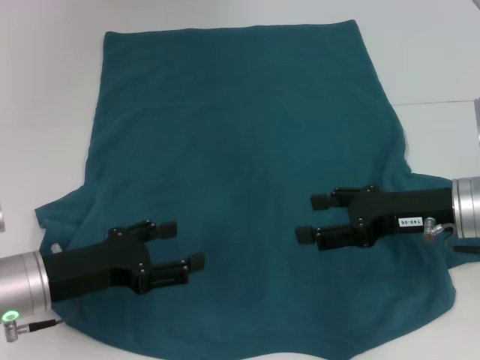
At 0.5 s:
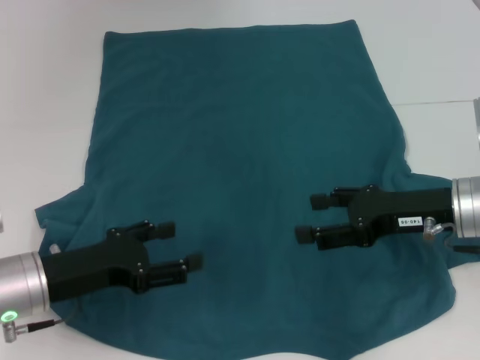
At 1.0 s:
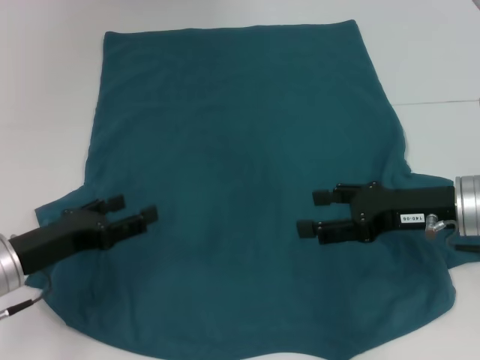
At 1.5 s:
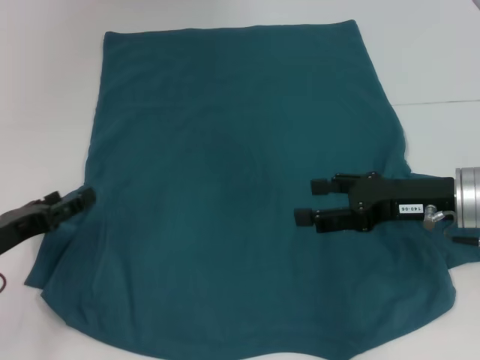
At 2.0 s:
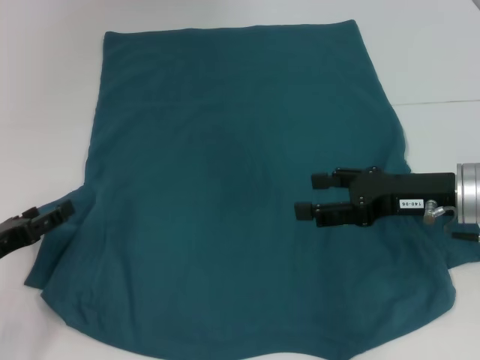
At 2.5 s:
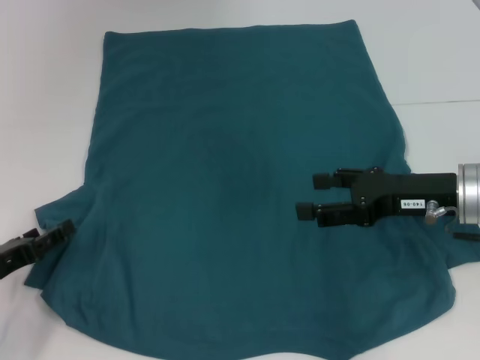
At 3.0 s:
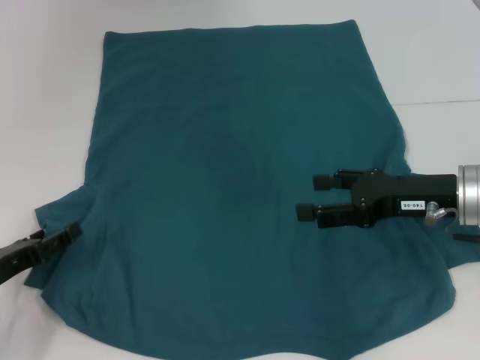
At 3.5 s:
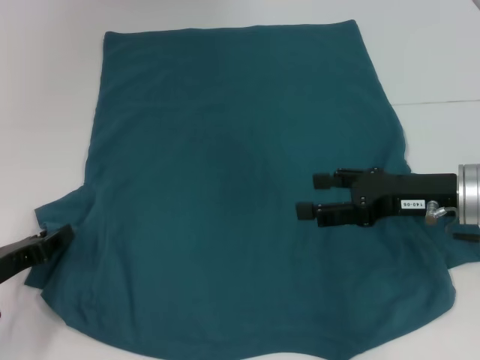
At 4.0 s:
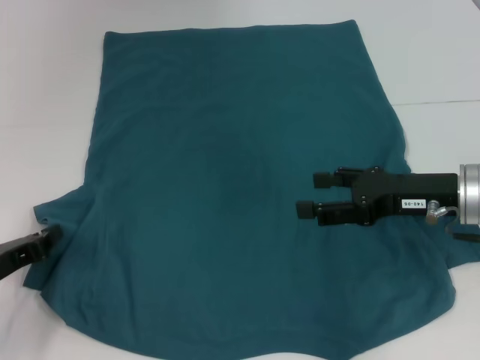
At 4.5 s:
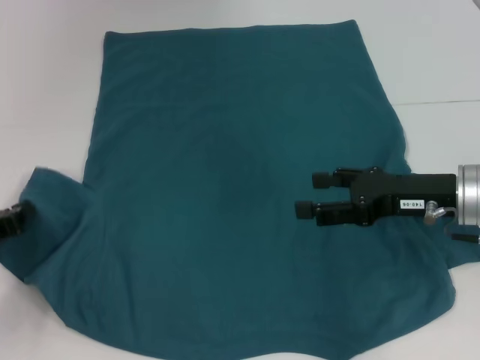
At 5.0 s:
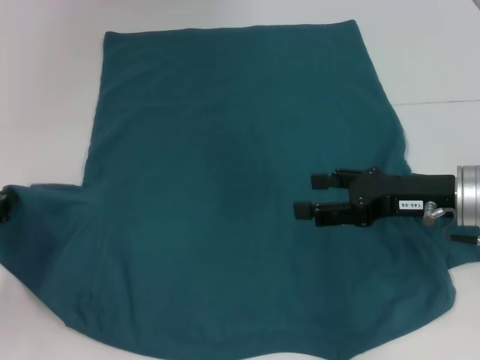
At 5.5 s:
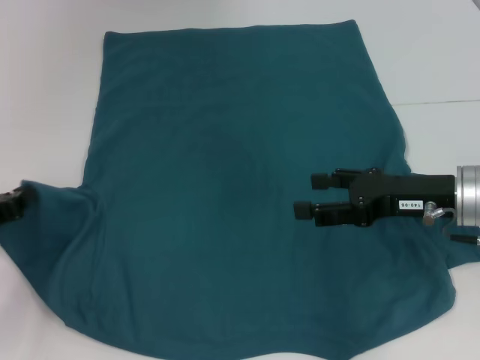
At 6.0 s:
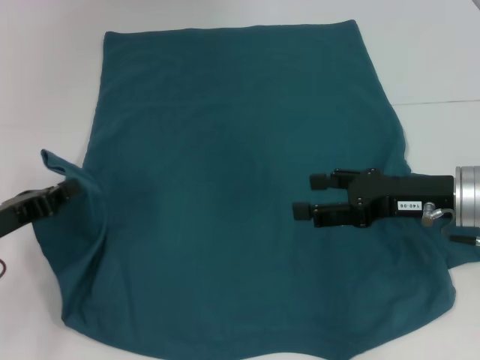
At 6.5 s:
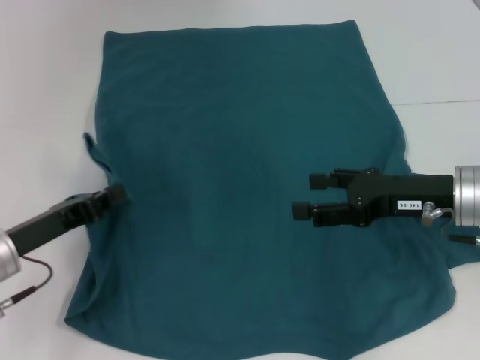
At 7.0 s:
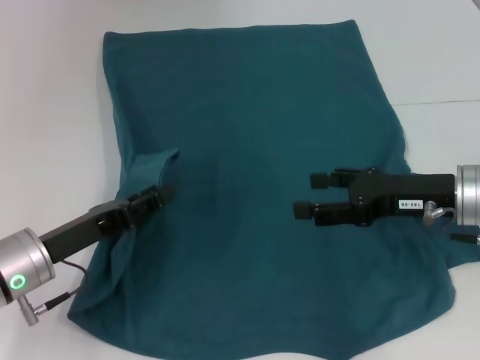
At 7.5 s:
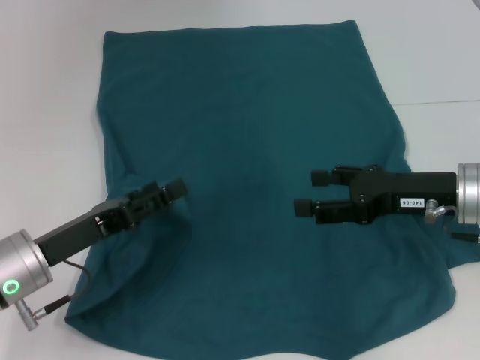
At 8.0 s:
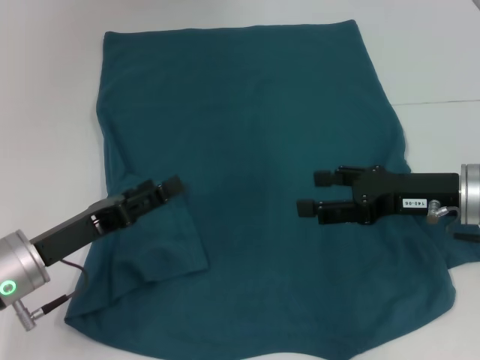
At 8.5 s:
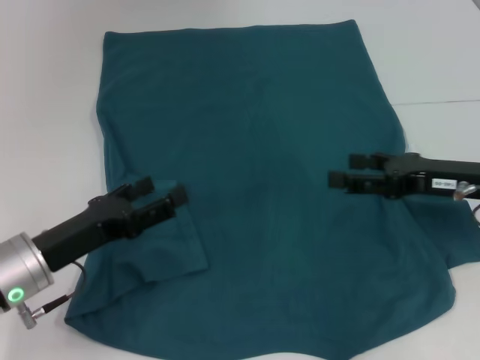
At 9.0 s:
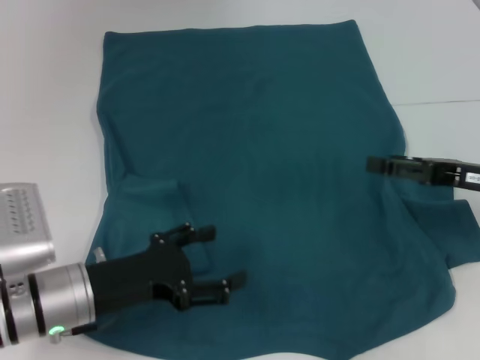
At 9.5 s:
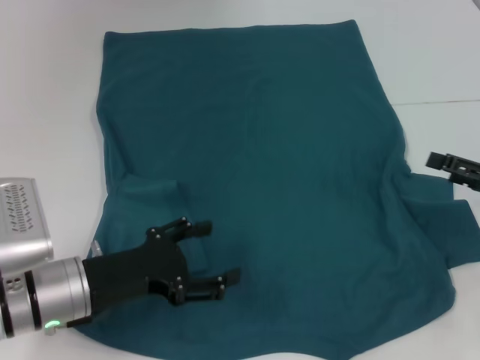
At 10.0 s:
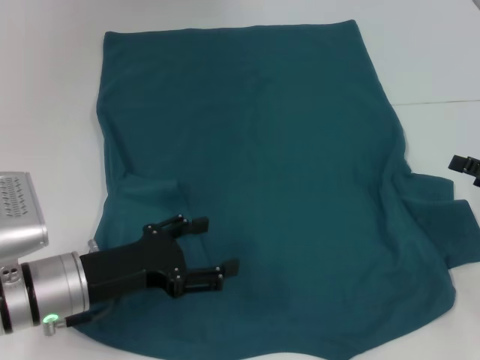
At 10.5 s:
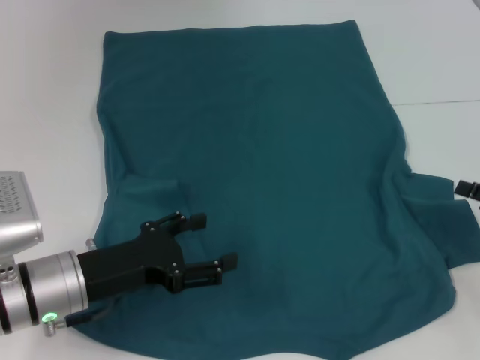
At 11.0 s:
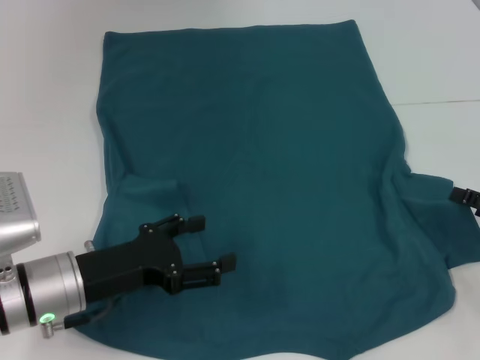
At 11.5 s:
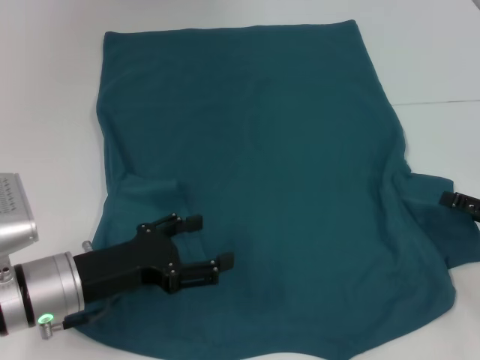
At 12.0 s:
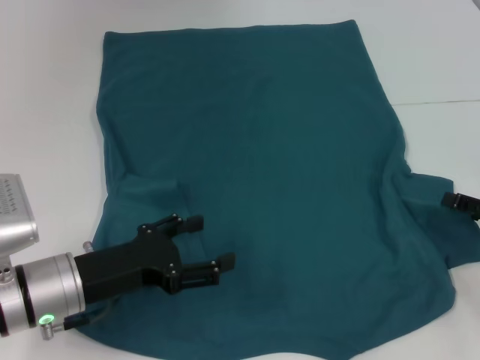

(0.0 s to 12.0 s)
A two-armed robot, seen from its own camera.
Step, 0.0 s - 8.0 s: Fold the bottom left sleeve with your left hand.
0.0 s - 2.0 s: The left gripper goes about 10 cm to the left.
2.0 s - 4.0 s: The left gripper closes its fingers.
4.0 s - 6.0 s: There are only small adjustments of the grippers.
6.0 s - 8.0 s: The left gripper moves to the right, about 5 cm, and opens.
8.0 s - 10.0 s: The right gripper shifts roughly 15 cm to the right.
10.0 s - 12.0 s: There are only small adjustments of the grippers.

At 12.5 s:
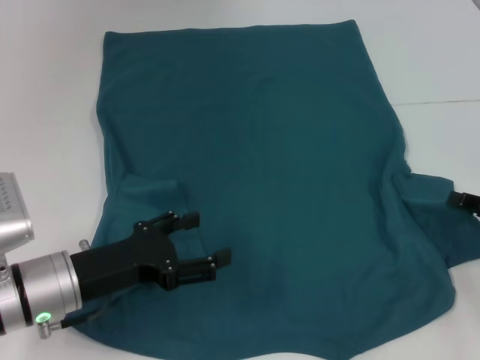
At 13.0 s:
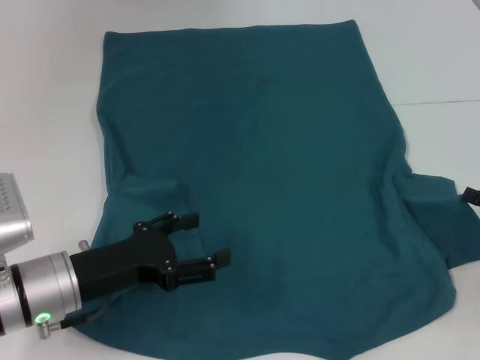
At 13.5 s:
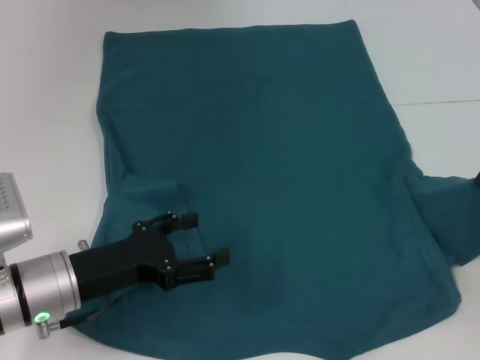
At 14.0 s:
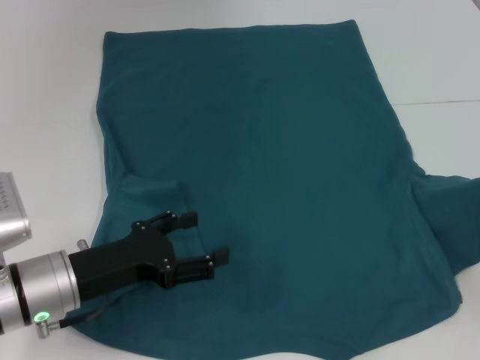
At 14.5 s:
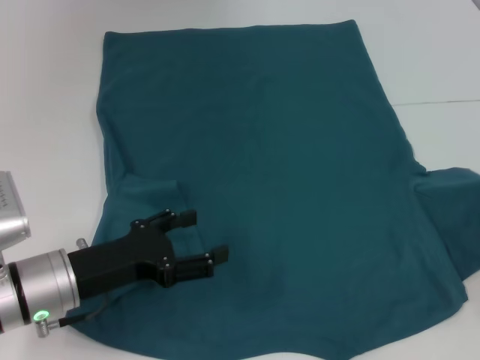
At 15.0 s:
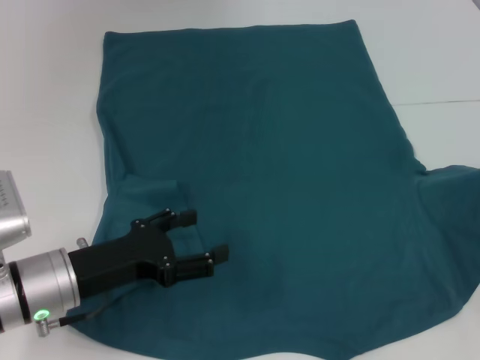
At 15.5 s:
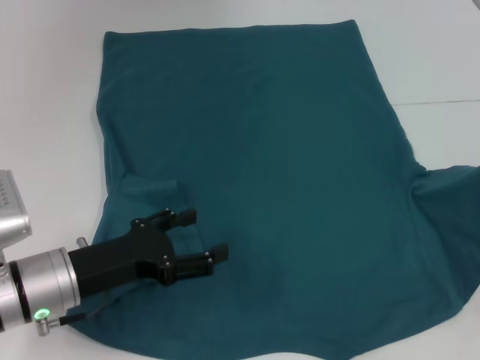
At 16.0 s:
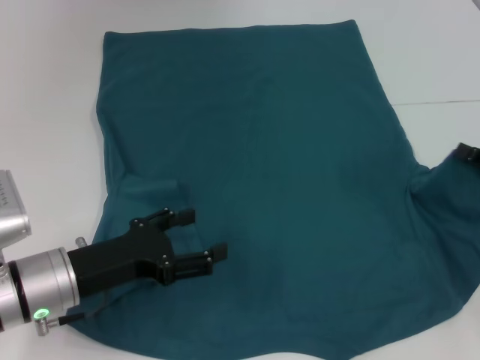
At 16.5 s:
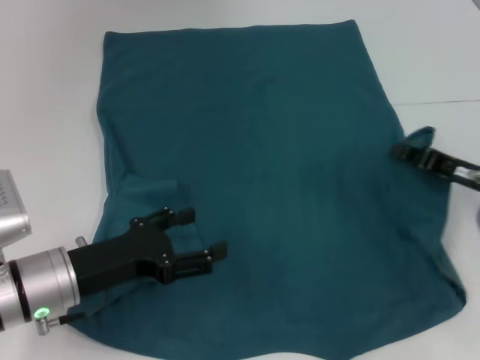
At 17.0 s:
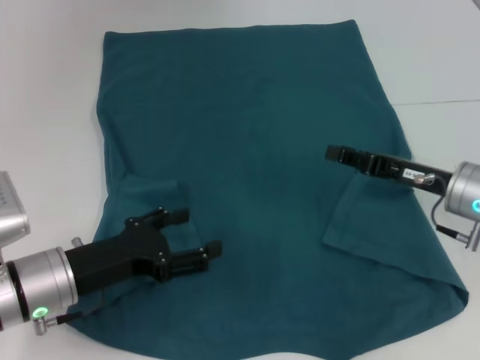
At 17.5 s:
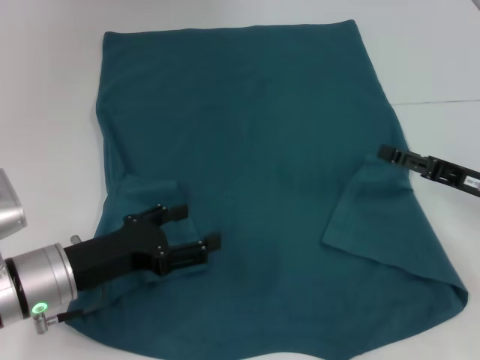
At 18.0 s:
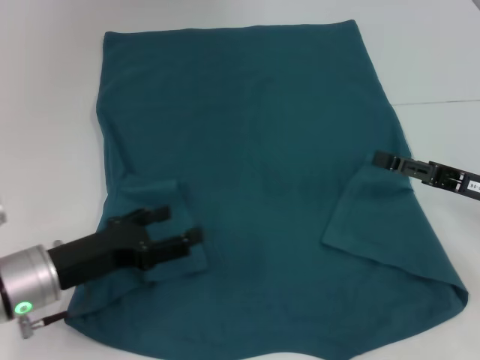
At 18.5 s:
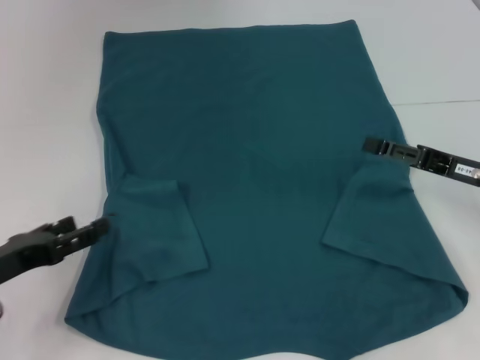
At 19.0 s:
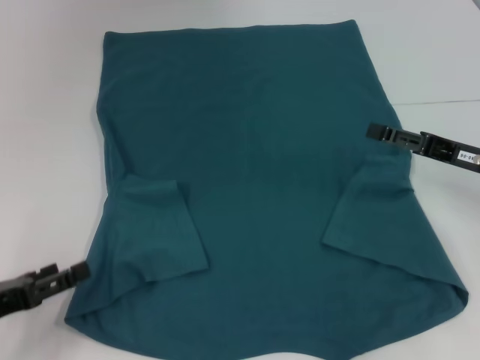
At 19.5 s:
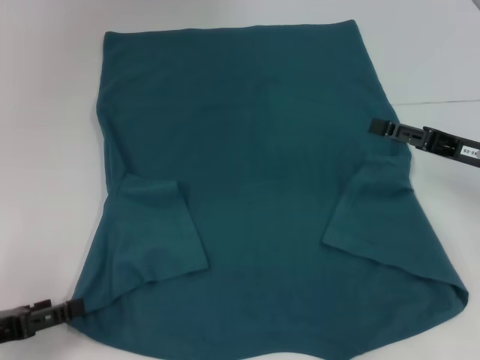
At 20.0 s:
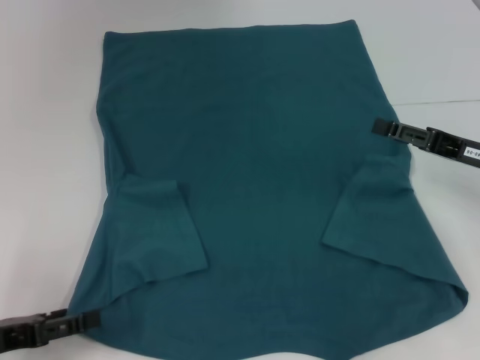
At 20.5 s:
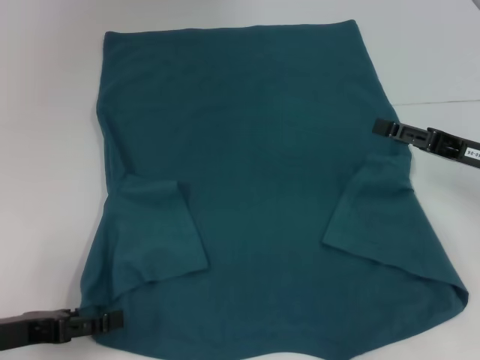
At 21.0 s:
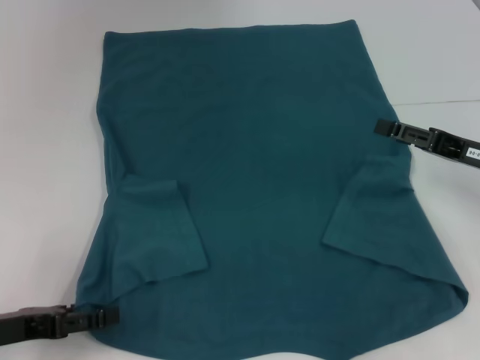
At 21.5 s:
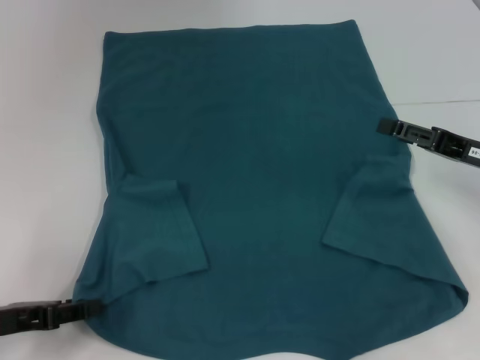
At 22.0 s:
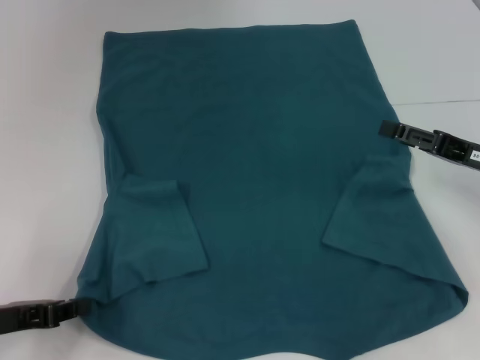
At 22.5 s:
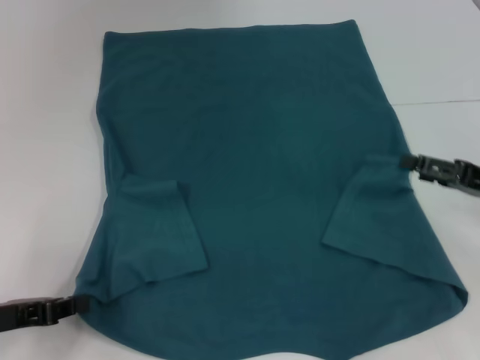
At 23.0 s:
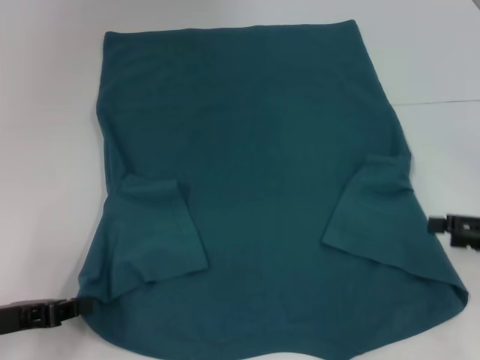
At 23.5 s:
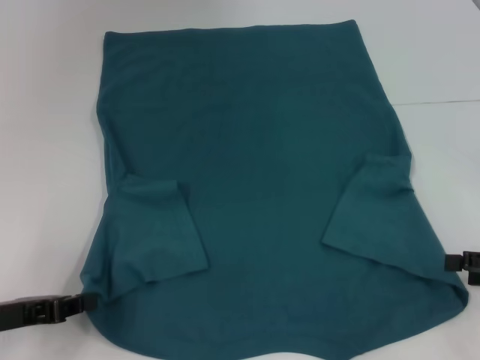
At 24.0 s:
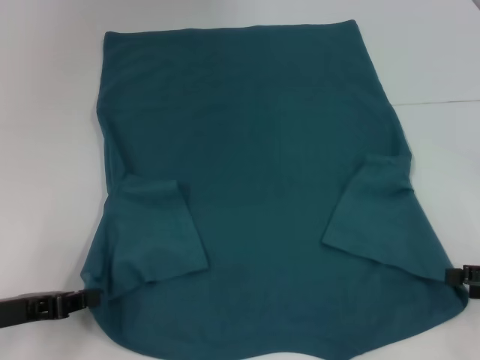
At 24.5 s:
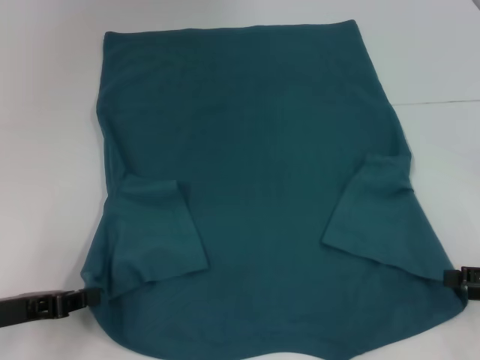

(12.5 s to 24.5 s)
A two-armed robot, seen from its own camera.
Step, 12.5 s - 17.0 s: Fold the bottom right sleeve to the right.
Step, 17.5 s - 22.5 s: Grab the bottom left corner with your left hand.
12.5 s - 14.5 s: The right gripper closes up.
14.5 s - 16.5 s: The right gripper travels to the left and forward by some 10 cm.
16.5 s - 18.5 s: The right gripper opens its fingers. The left gripper shifts about 10 cm to the left.
20.5 s - 22.5 s: The left gripper closes.
22.5 s - 24.5 s: The right gripper is displaced backward by some 5 cm.

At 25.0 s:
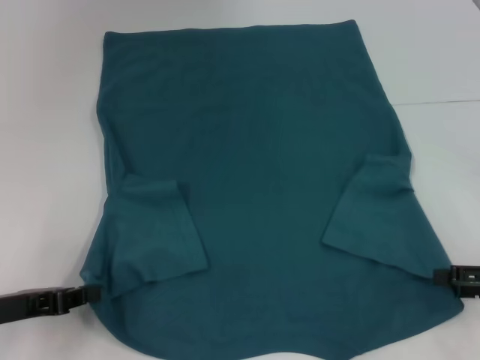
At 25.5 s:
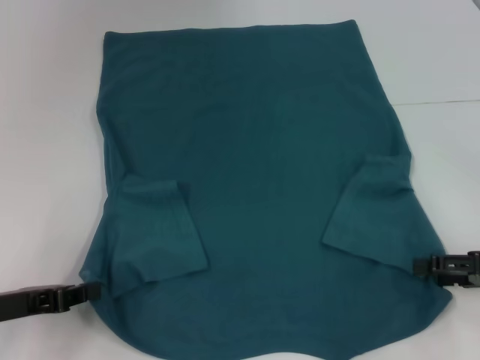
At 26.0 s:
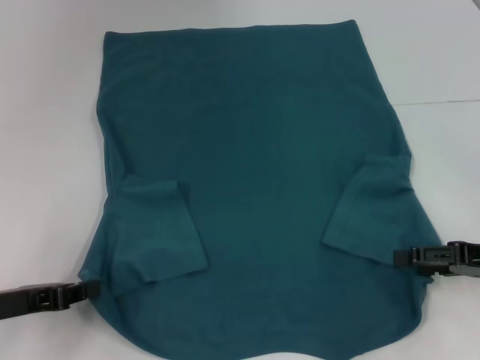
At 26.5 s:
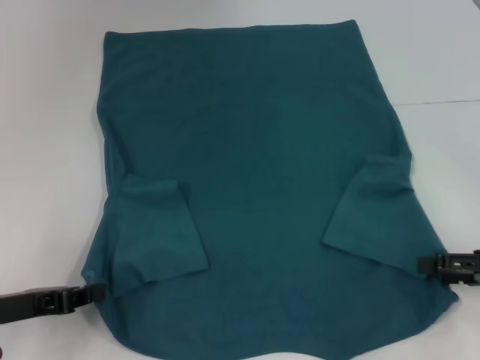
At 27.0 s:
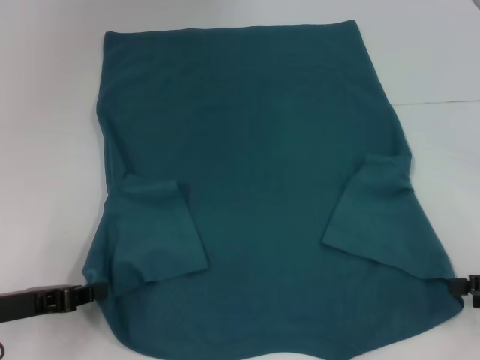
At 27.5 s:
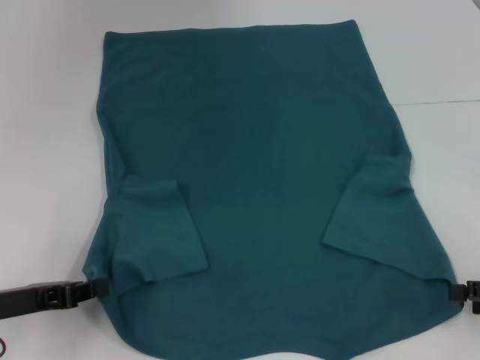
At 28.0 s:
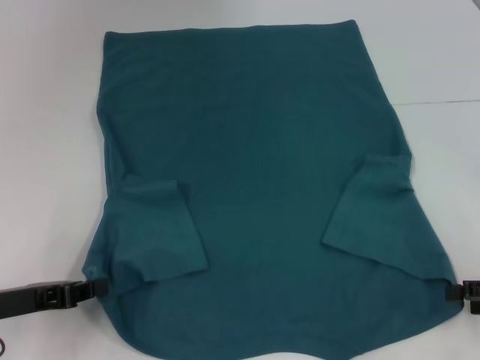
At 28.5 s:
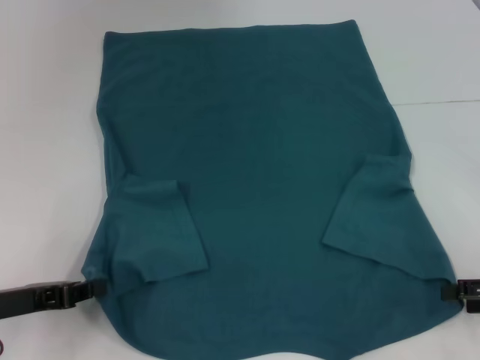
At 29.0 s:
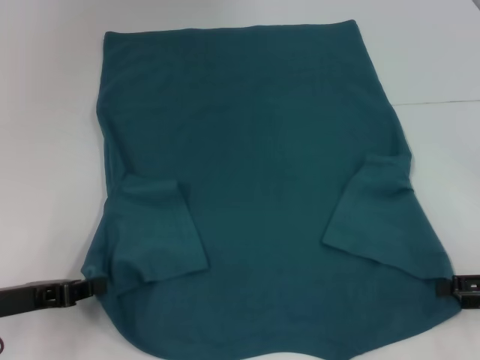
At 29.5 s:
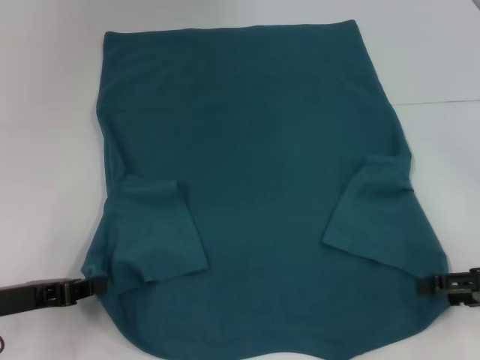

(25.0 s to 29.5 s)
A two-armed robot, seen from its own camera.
25.0 s - 29.5 s: There are only small adjustments of the grippers.
